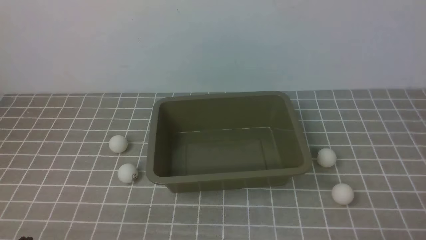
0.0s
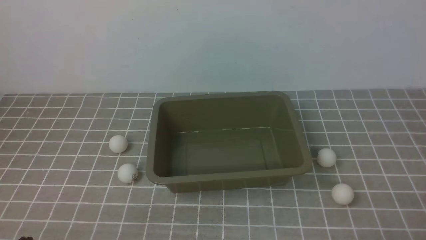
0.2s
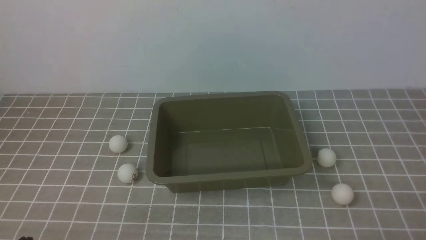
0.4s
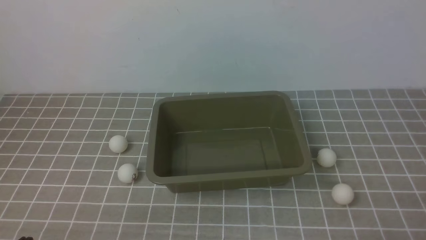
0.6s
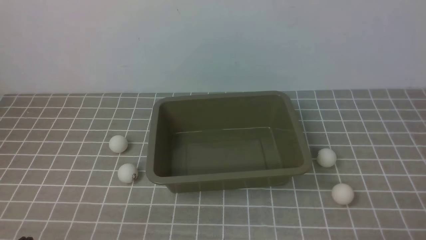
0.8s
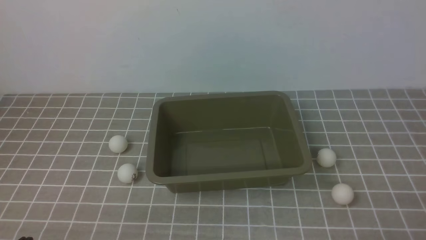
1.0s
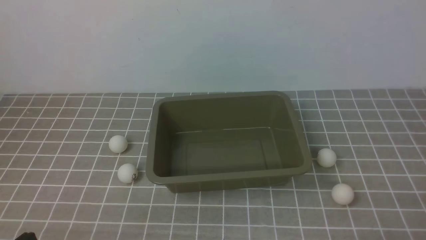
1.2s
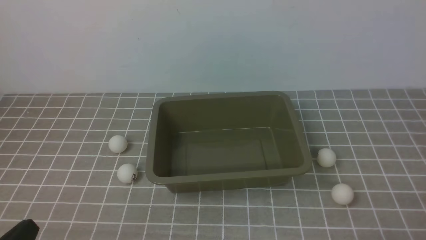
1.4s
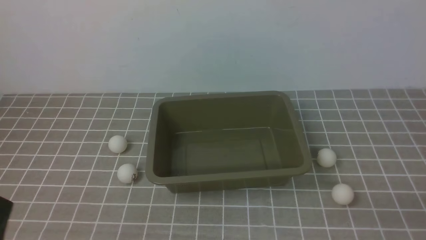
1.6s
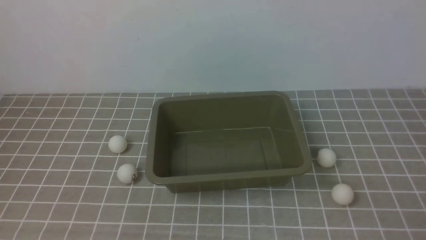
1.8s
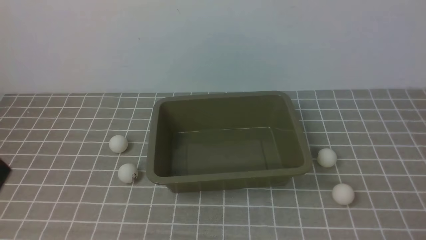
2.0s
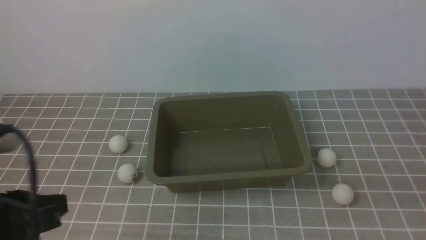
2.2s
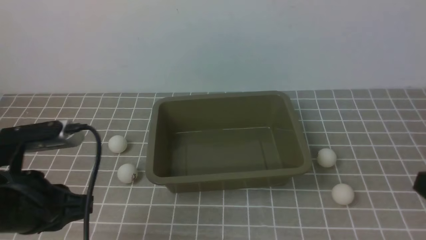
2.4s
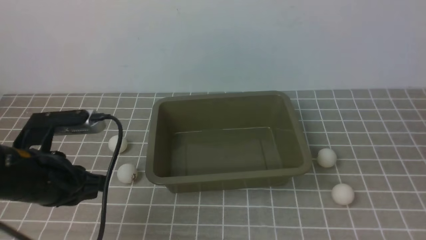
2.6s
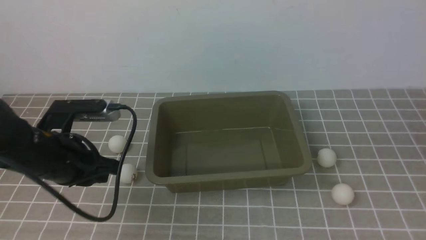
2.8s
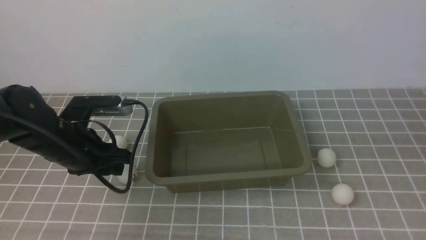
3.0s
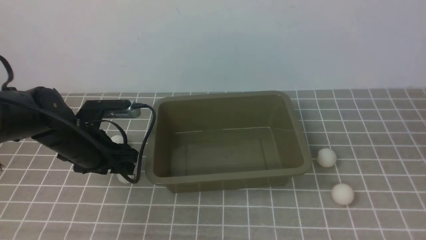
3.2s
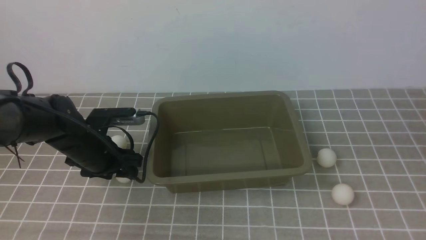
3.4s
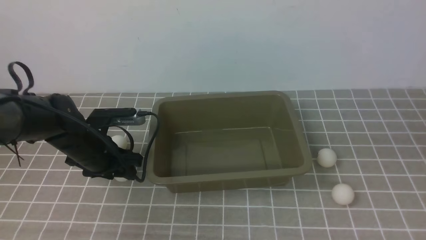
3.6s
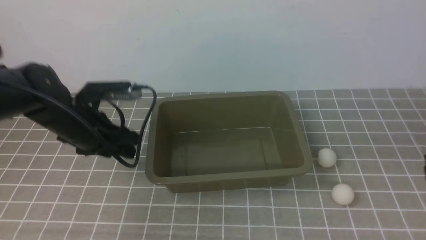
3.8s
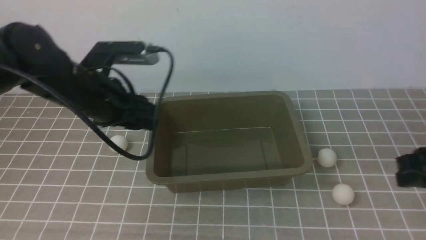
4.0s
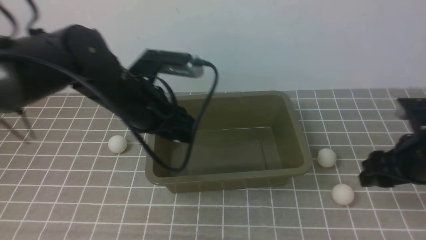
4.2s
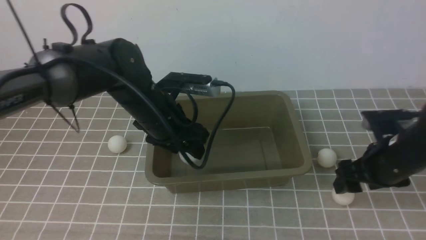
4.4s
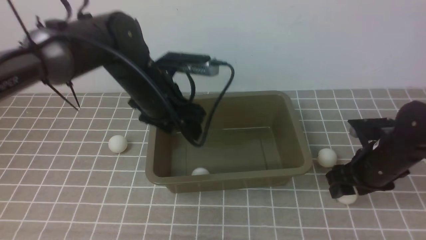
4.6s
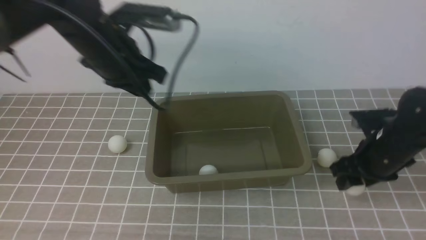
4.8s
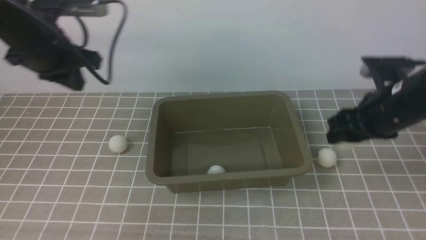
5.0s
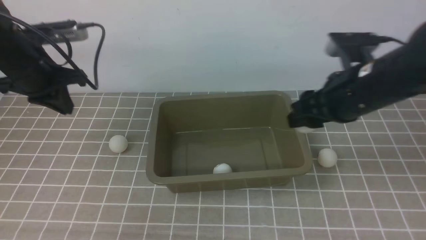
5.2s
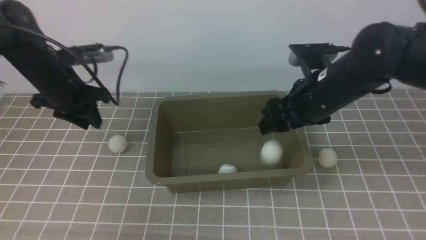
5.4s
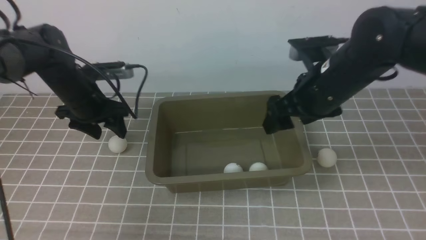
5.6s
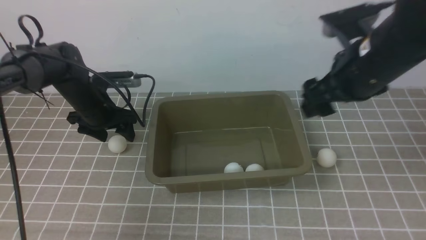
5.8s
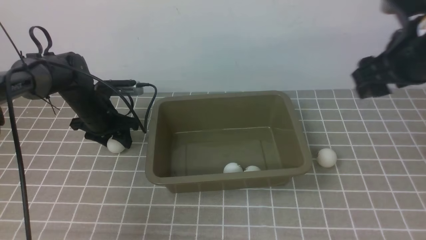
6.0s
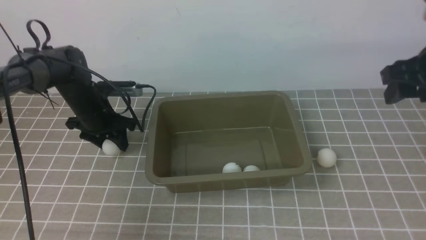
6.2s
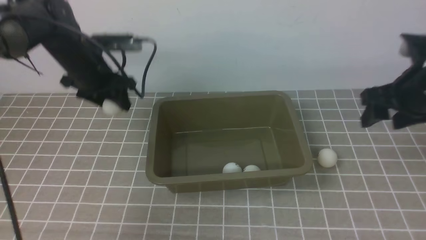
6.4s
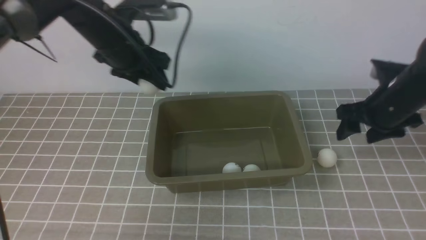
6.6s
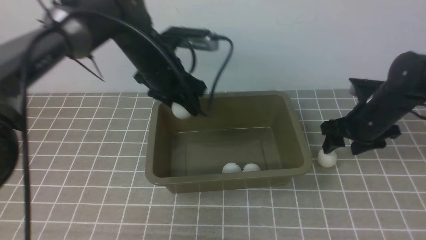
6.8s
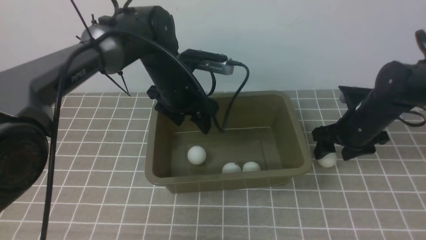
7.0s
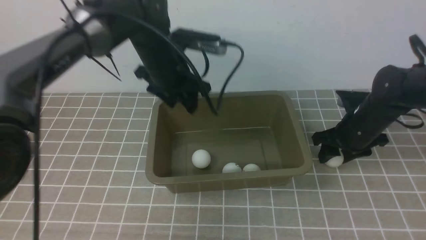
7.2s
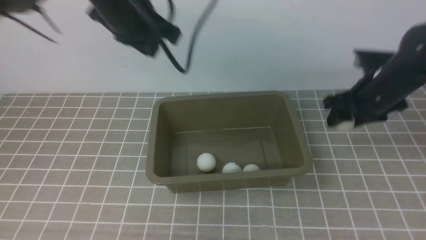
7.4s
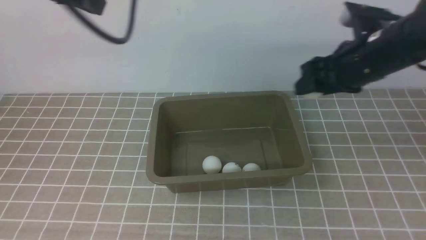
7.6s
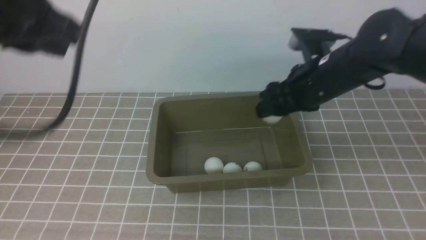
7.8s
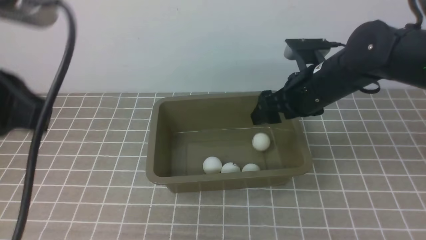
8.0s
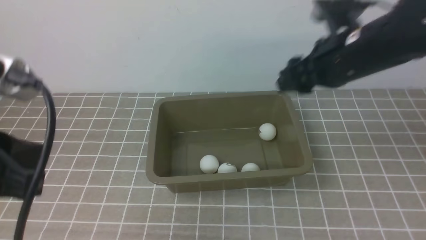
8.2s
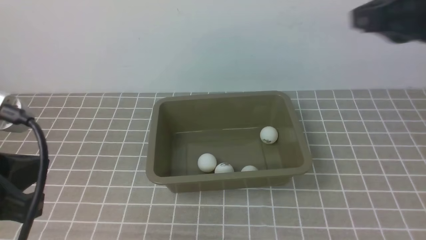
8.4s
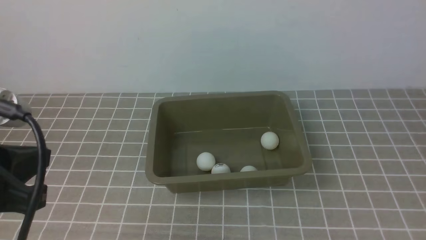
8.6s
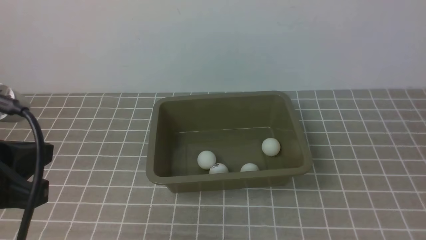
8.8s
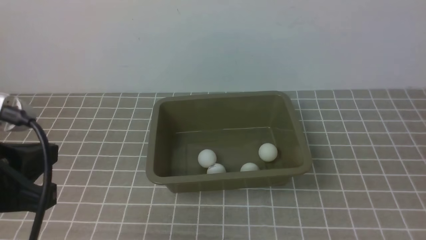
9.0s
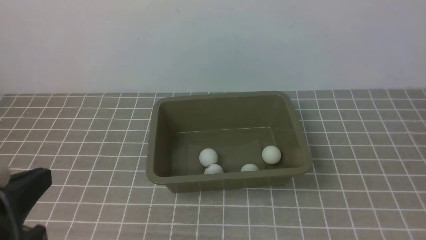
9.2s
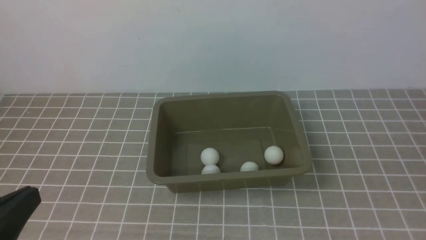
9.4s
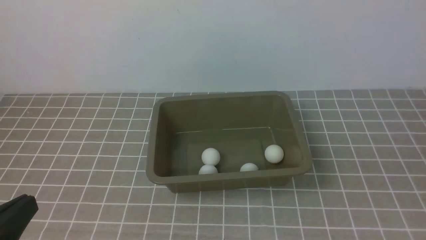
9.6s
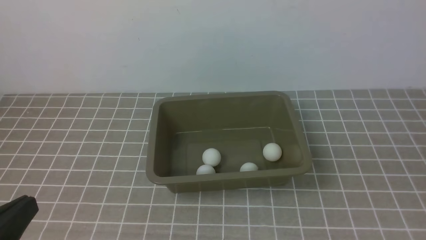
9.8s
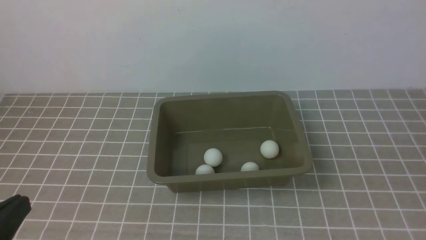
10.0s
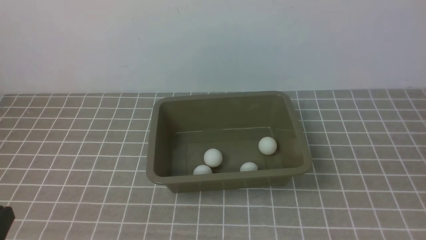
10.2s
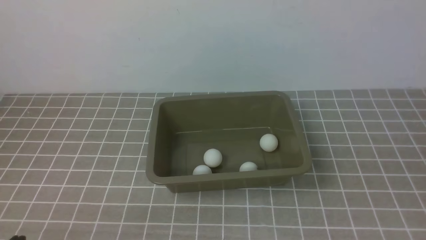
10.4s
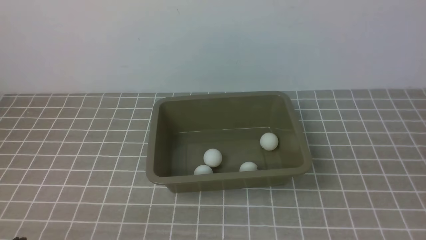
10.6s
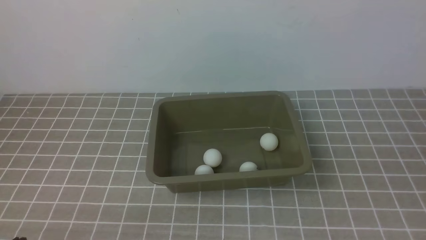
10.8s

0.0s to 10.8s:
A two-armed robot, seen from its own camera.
Step, 0.0s to 3.6s: use the left arm to clamp the table tennis ball closest to it.
Step, 3.8s to 4.4s: use the left arm to put the table tennis ball into the box.
Step, 4.6s to 4.8s: use the right arm to clamp the table tennis ball closest to it.
Step, 5.0s to 5.4s: use the right arm to put the table tennis ball into the box.
Step, 5.6s to 6.2s: use the left arm to clamp the table tennis ball closest to it.
Step, 6.4s to 7.0s: use the left arm to put the table tennis ball into the box.
Step, 7.2s to 7.4s: use the right arm to clamp the table tennis ball closest to it.
Step, 7.6s to 8.0s: use the right arm to put the table tennis ball into the box.
1.6s to 3.0s: The right gripper travels upward and forward by roughly 15 cm. Meanwhile the left gripper shifts about 25 cm forward, and opens.
3.0s to 4.6s: The left gripper travels to the right, upward and forward by roughly 15 cm. The right gripper heads downward and forward, covering some 20 cm, and opens its fingers.
4.6s to 6.2s: The right gripper goes approximately 15 cm upward, while the left gripper is displaced to the left, downward and forward by some 15 cm, and closes, then reopens.
6.2s to 7.8s: The left gripper moves upward and backward, approximately 35 cm, and closes up. The right gripper moves to the left, about 10 cm, and travels downward and back again, approximately 15 cm each way.
7.8s to 9.2s: The right gripper is displaced backward and to the right by roughly 35 cm, and closes; the left gripper travels downward and backward by about 20 cm.
9.2s to 10.8s: The left gripper travels downward by roughly 15 cm.

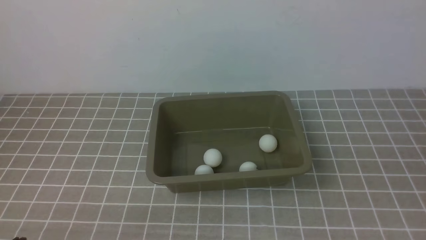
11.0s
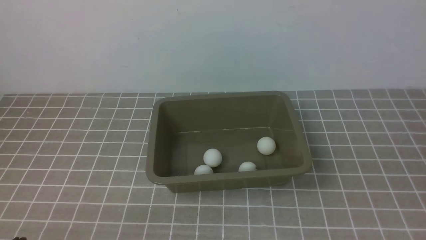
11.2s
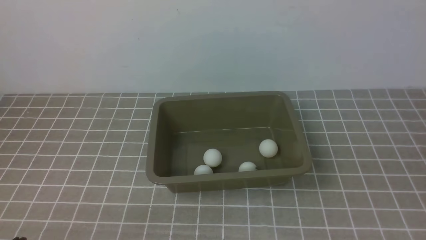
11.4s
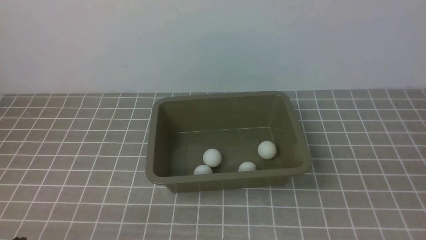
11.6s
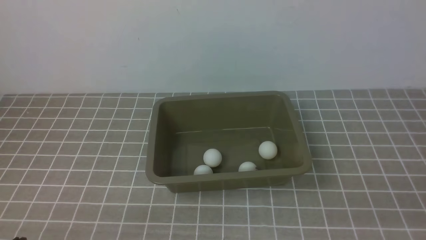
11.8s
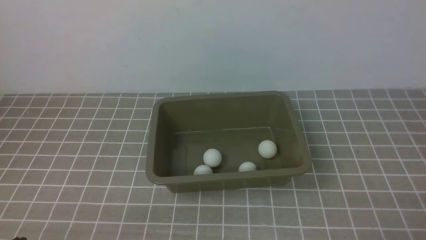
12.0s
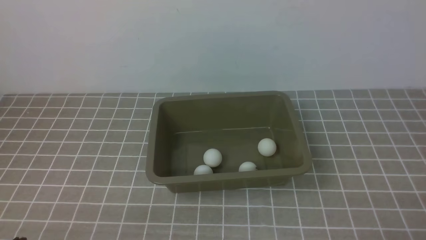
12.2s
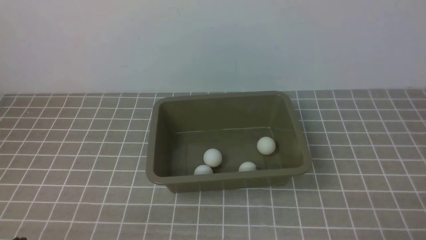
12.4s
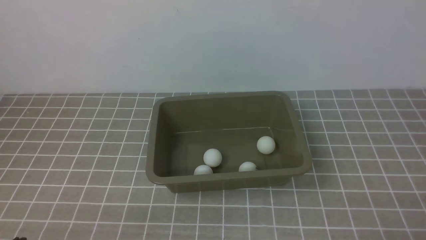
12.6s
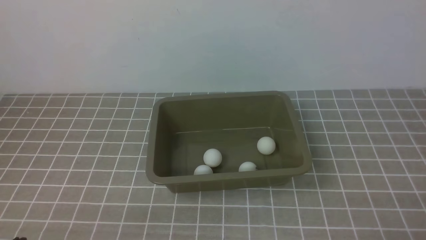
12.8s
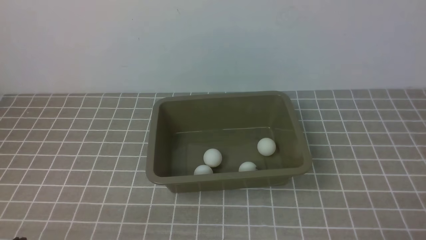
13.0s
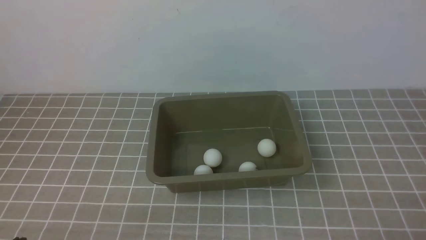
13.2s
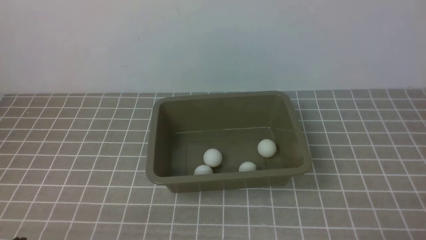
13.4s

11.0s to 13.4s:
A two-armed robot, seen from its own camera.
12.2s to 13.4s: Both grippers stay about where they are.

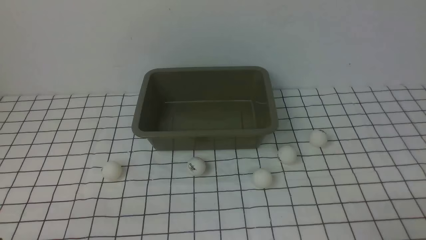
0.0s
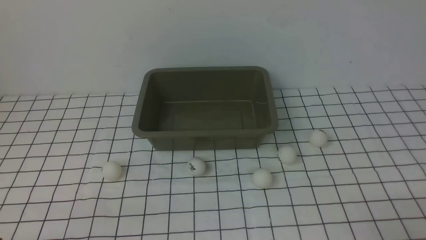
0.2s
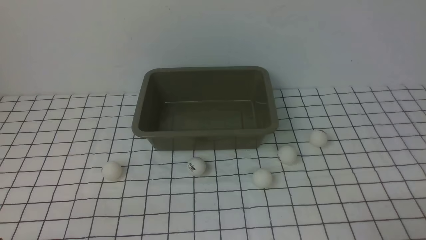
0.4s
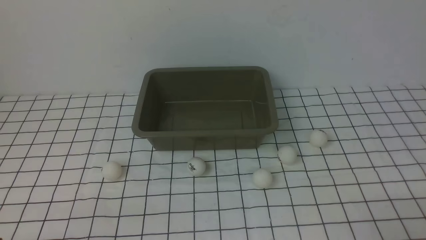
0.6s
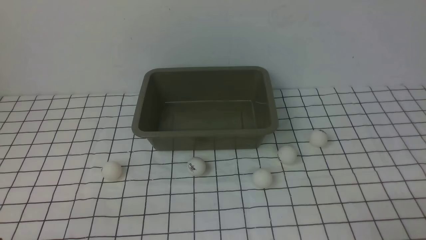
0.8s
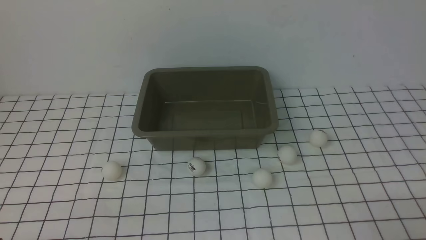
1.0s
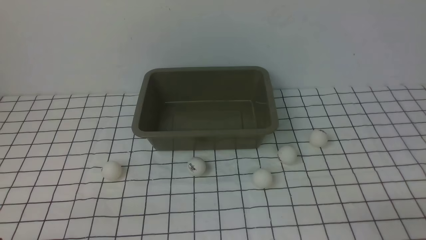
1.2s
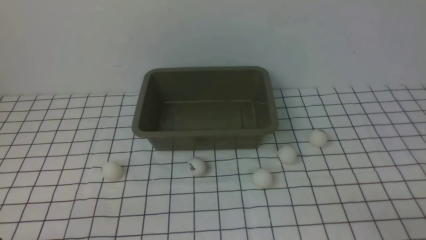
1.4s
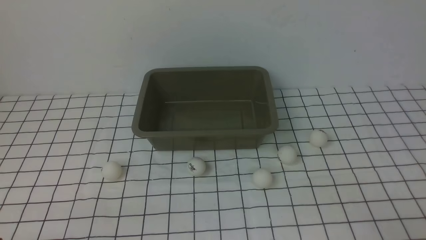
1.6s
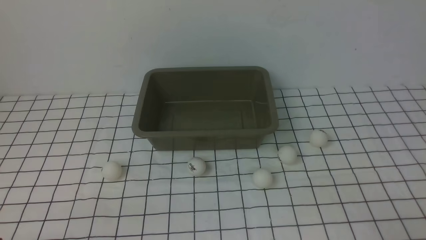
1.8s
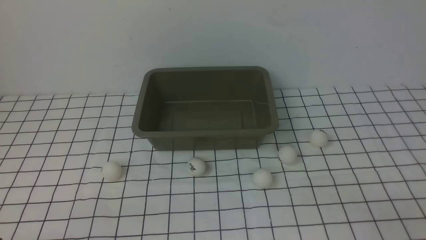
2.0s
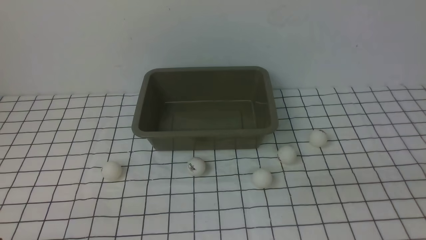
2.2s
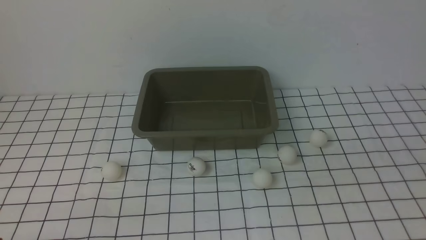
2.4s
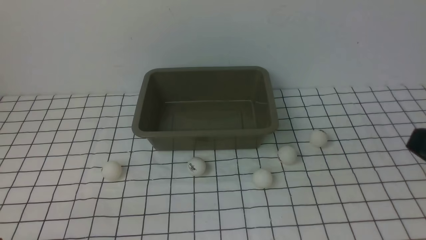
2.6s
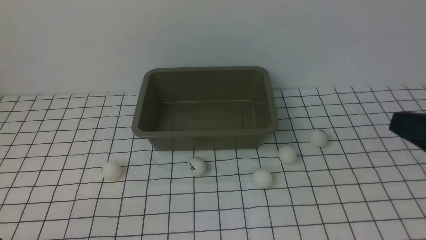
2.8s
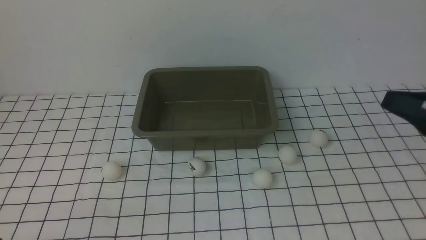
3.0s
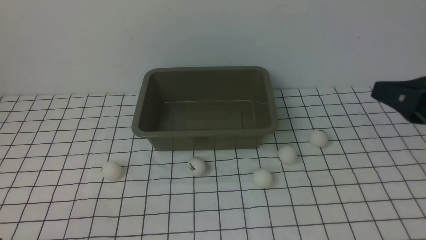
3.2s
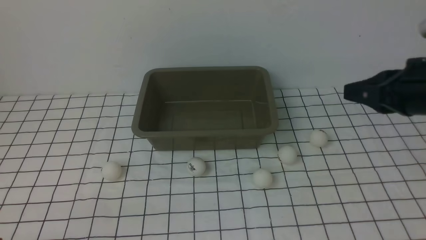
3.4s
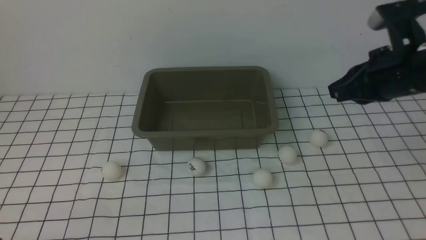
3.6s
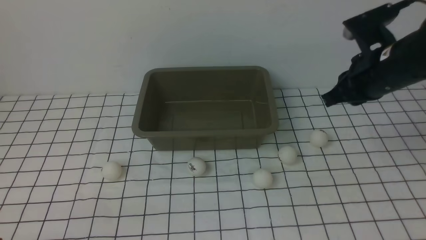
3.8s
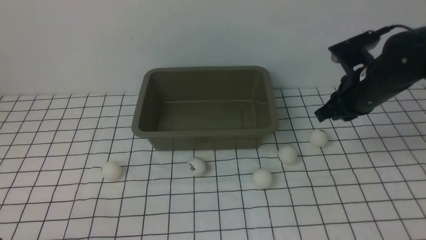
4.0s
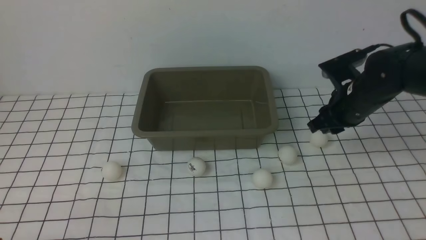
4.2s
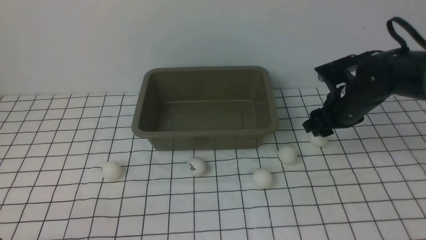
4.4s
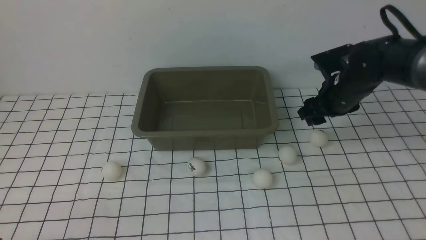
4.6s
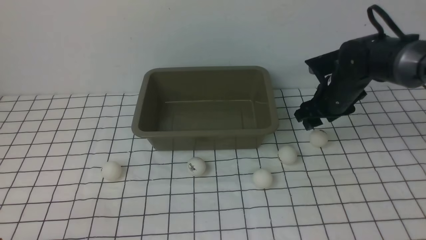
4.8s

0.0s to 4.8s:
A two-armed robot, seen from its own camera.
1.6s to 3.2s: The right gripper moves forward and upward, about 25 cm.
3.2s to 4.8s: The right gripper is displaced forward and downward by some 25 cm, and opens.
